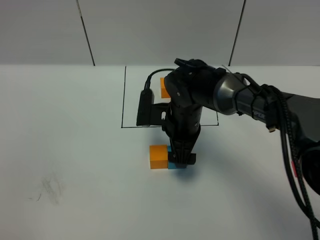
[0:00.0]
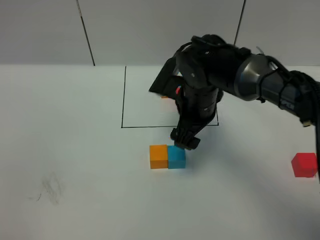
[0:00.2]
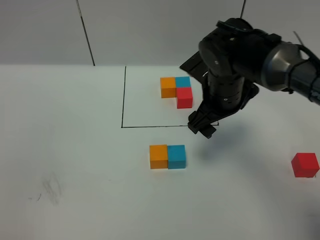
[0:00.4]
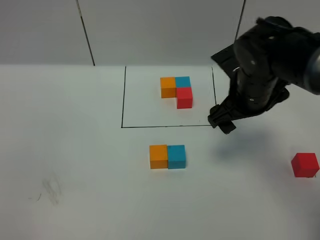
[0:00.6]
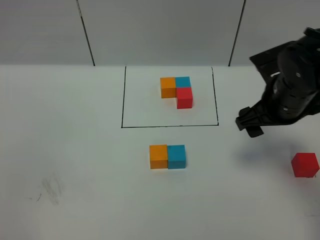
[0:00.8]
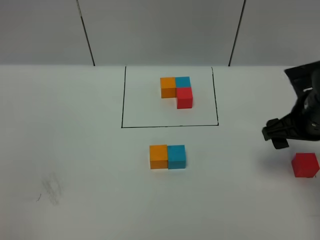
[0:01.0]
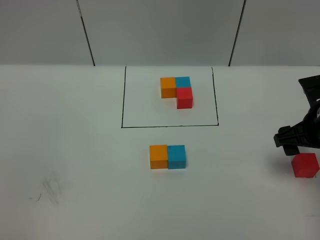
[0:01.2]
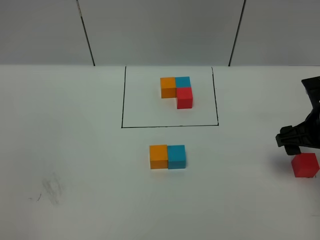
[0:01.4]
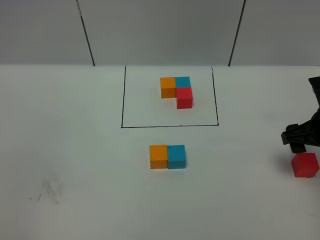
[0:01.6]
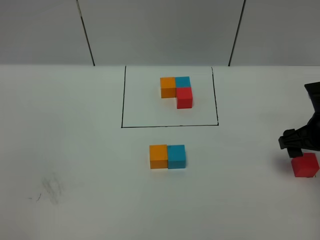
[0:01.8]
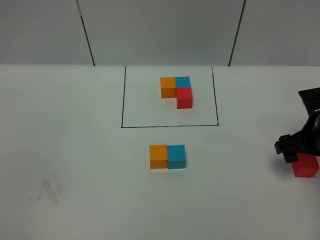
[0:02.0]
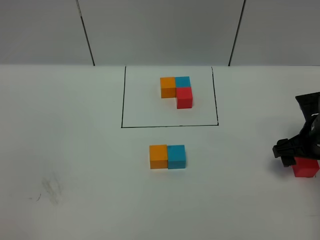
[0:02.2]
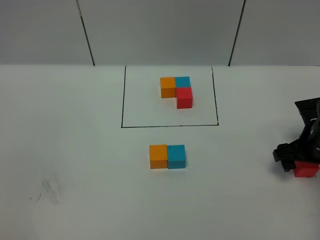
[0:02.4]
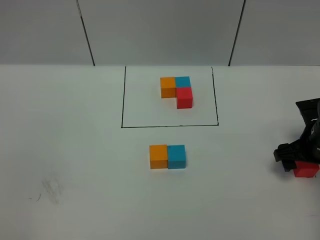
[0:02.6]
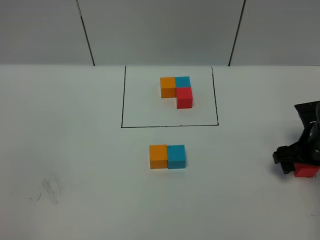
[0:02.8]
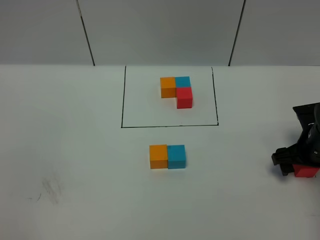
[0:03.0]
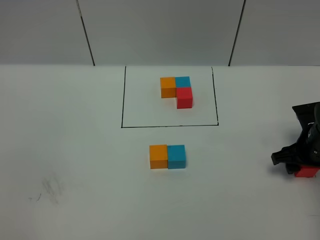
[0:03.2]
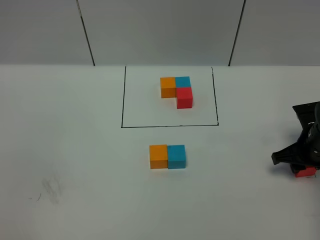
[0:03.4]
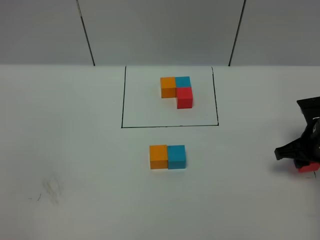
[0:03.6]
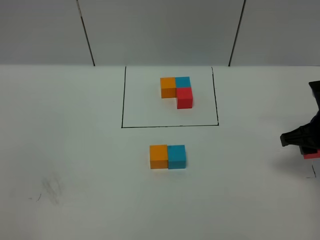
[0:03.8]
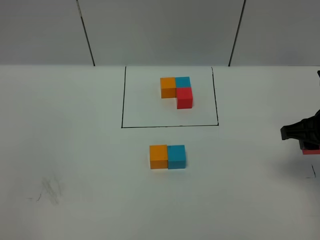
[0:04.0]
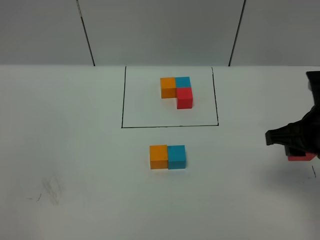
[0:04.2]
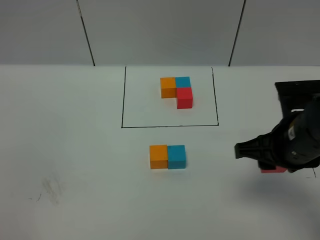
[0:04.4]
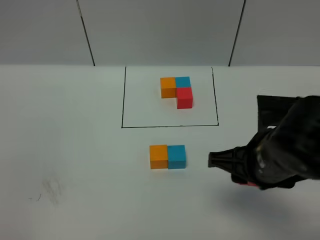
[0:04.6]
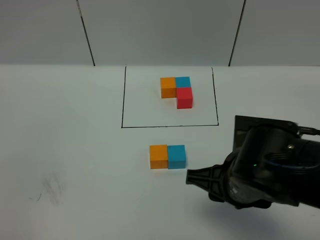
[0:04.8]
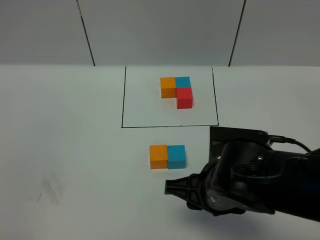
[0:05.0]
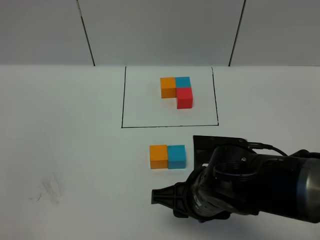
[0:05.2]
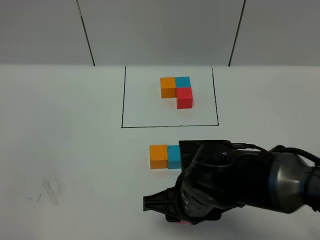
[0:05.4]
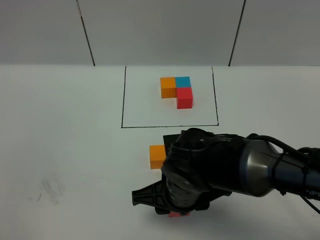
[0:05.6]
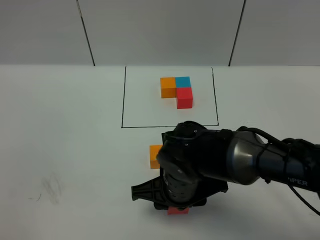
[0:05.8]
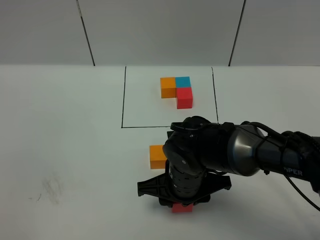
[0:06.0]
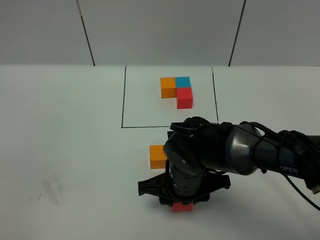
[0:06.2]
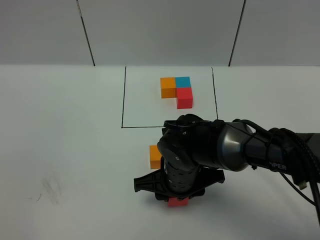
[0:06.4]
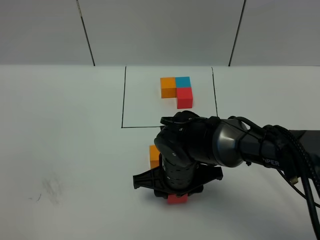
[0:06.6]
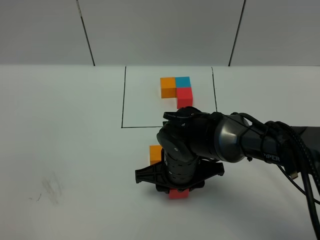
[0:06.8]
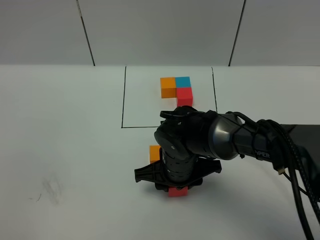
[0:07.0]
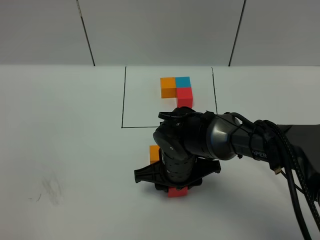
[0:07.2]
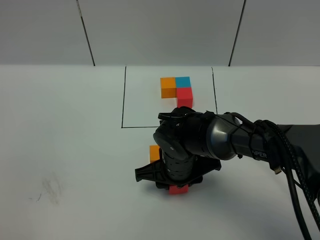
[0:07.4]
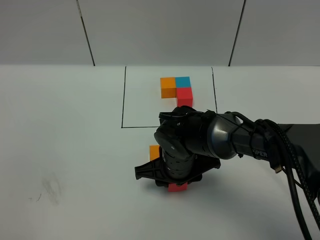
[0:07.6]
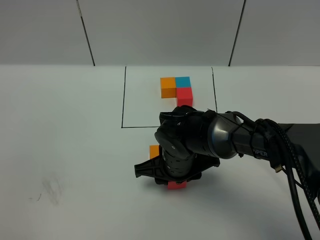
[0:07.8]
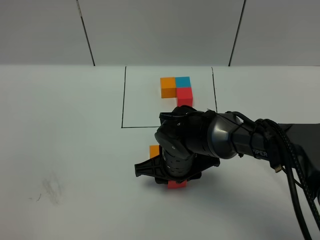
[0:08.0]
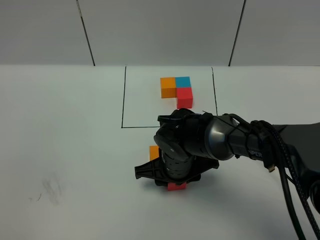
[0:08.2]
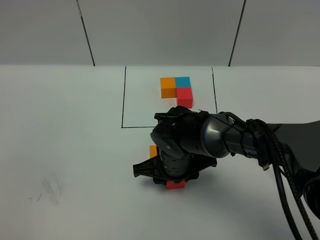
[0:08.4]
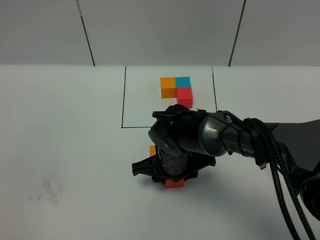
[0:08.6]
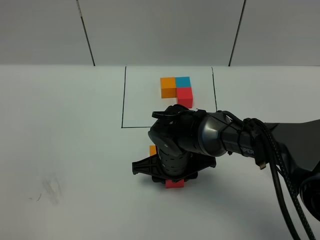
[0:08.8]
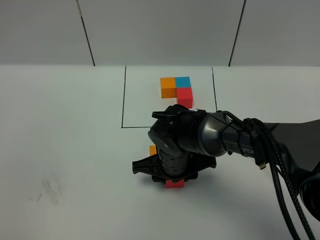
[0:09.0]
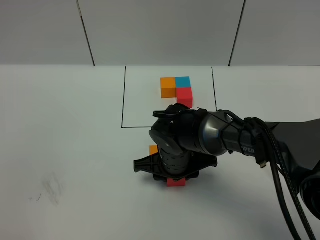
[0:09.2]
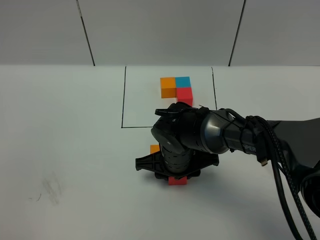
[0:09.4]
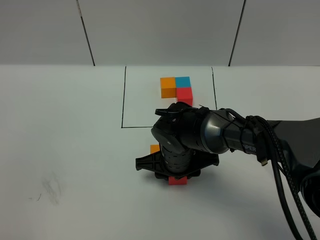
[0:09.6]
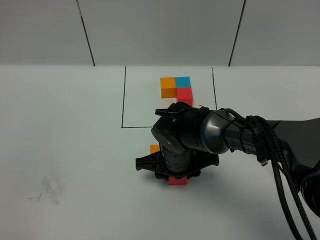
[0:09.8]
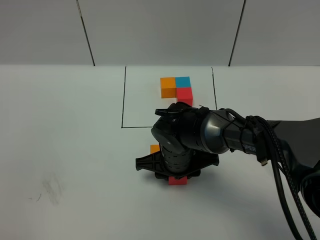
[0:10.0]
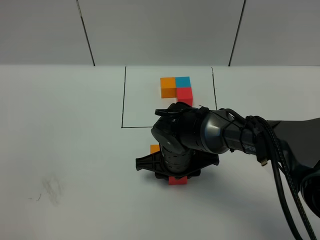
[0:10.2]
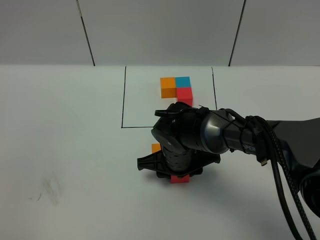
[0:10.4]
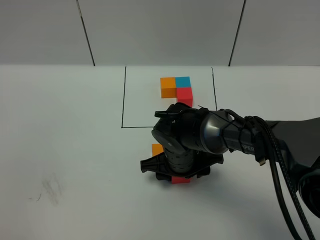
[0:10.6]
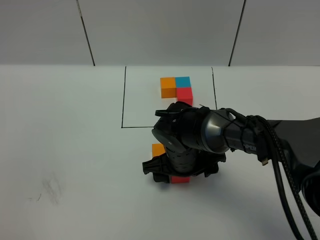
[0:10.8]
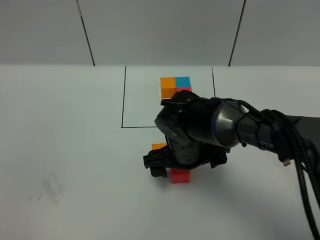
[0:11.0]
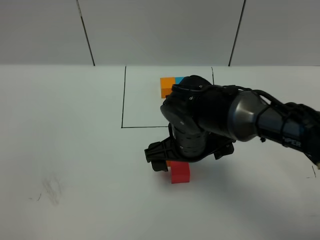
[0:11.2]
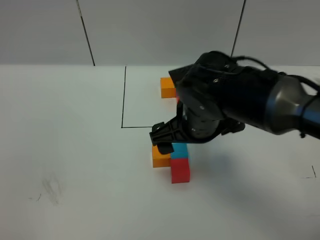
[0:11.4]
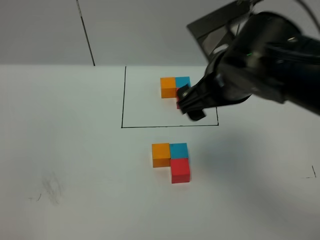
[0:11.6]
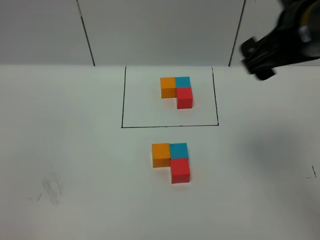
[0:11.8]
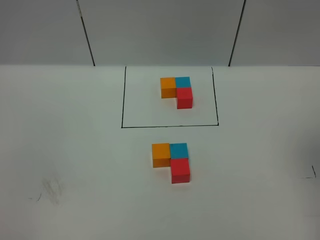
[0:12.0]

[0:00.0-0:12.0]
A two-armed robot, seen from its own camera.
Task of the whole recording: According to the building block template in front, assemble the scattered blocks together.
Step, 0:00.0 to 0:11.0: Put the red cube in the front of the green cube.
0:00.0 to 0:01.6: The right gripper moves to the right, approximately 25 cm.
0:01.6 to 0:03.0: The right gripper goes roughly 10 cm downward.
0:03.0 to 0:04.4: The right gripper goes roughly 20 cm upward, to the left and backward, and closes its fingers.
0:04.4 to 0:06.0: The right gripper moves to the left and downward, some 20 cm.
0:06.0 to 0:07.6: The right gripper moves about 5 cm.
0:07.6 to 0:09.0: The grippers make only small movements.
0:09.0 to 0:10.4: Both grippers stay about where they are.
0:10.4 to 0:12.0: The right gripper travels upward and to the right by roughly 40 cm, and opens its fingers.
